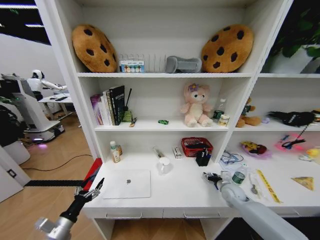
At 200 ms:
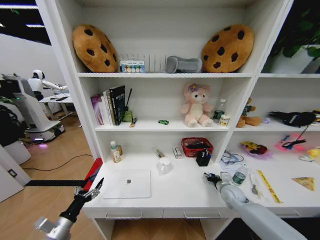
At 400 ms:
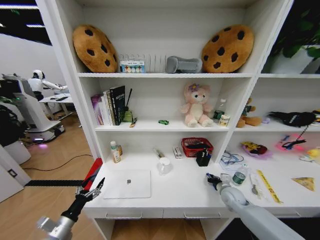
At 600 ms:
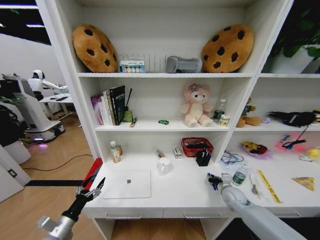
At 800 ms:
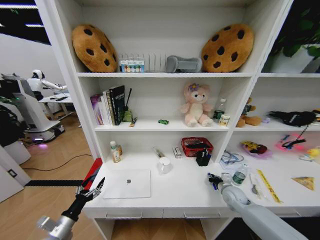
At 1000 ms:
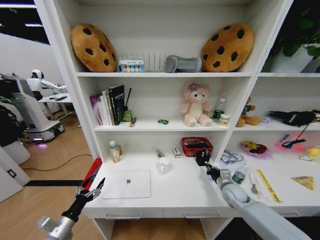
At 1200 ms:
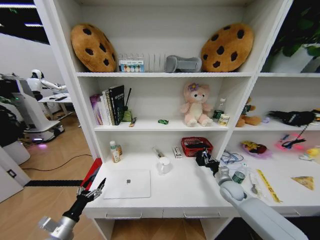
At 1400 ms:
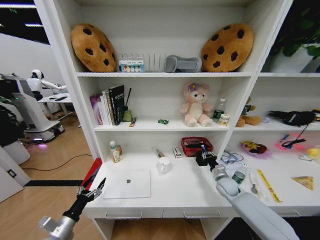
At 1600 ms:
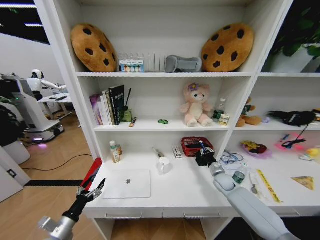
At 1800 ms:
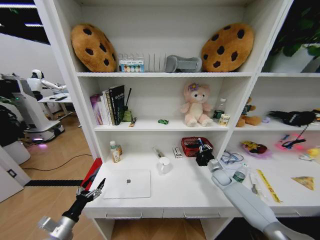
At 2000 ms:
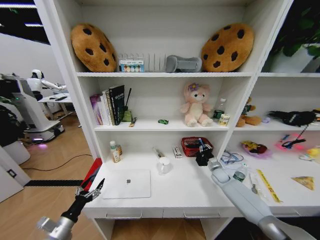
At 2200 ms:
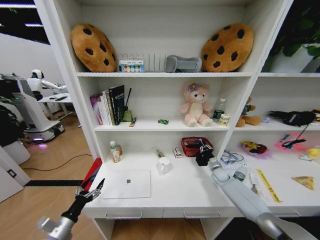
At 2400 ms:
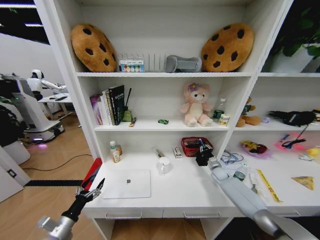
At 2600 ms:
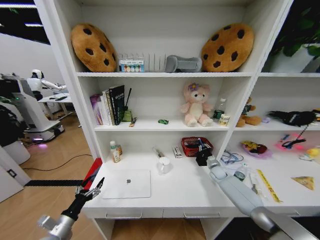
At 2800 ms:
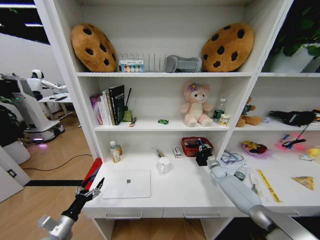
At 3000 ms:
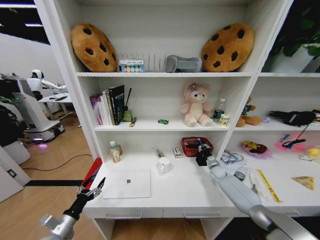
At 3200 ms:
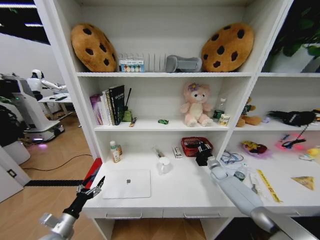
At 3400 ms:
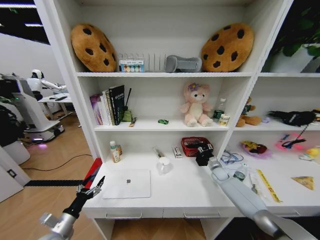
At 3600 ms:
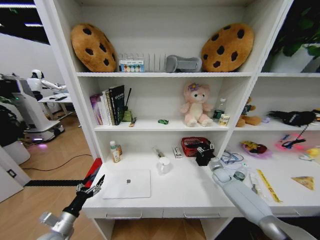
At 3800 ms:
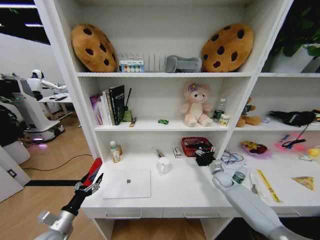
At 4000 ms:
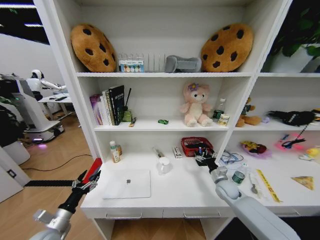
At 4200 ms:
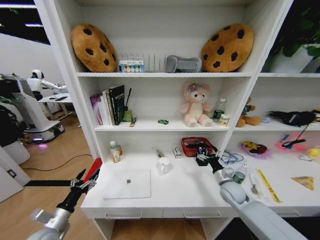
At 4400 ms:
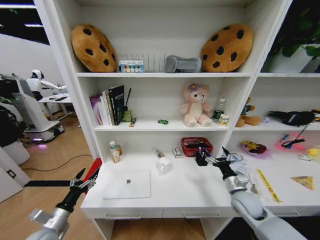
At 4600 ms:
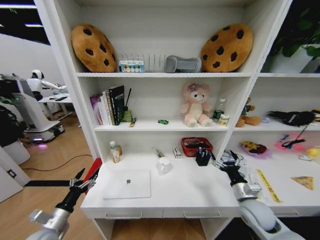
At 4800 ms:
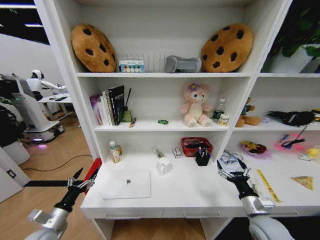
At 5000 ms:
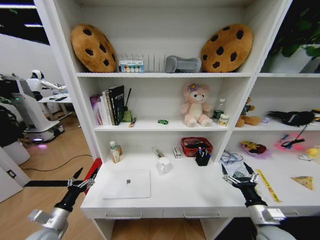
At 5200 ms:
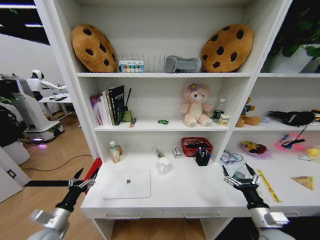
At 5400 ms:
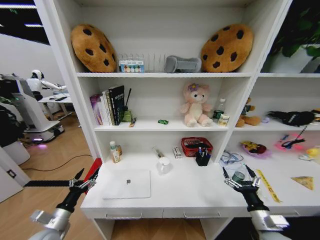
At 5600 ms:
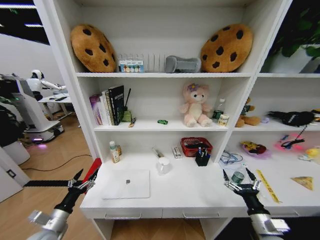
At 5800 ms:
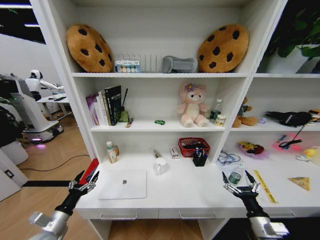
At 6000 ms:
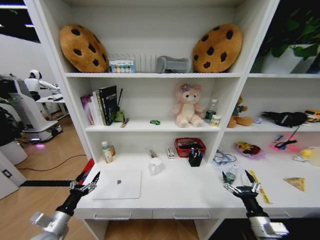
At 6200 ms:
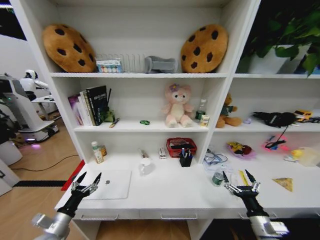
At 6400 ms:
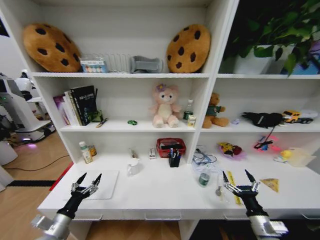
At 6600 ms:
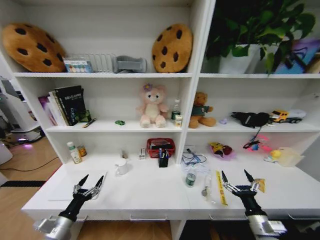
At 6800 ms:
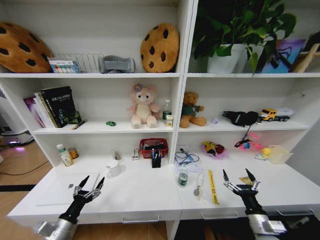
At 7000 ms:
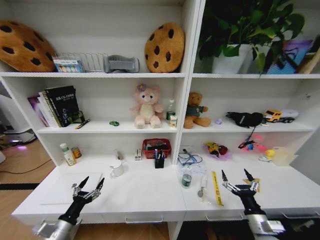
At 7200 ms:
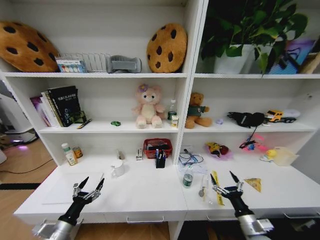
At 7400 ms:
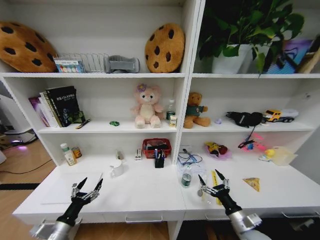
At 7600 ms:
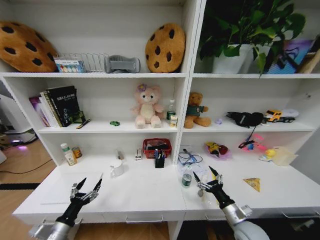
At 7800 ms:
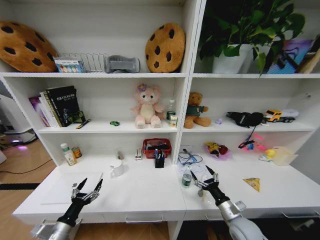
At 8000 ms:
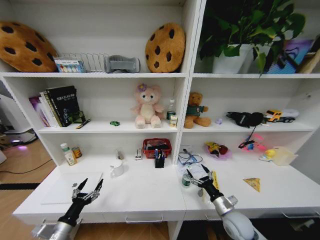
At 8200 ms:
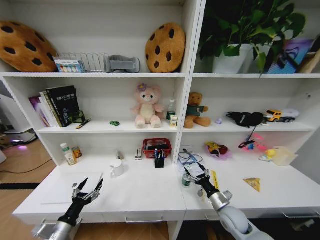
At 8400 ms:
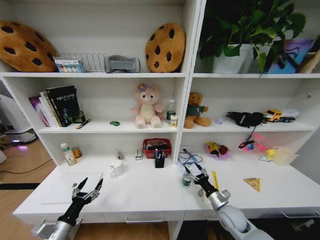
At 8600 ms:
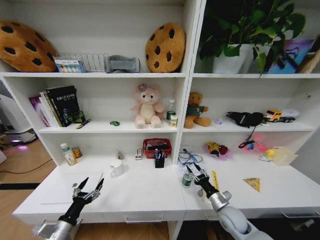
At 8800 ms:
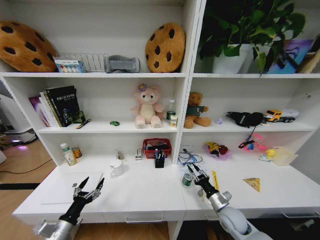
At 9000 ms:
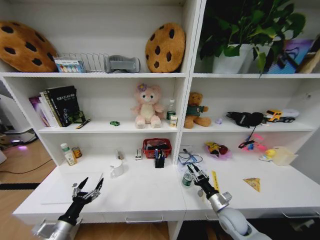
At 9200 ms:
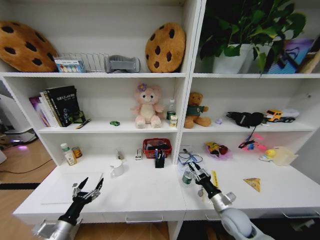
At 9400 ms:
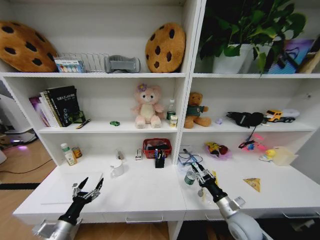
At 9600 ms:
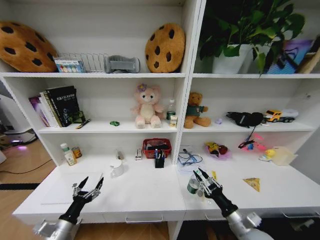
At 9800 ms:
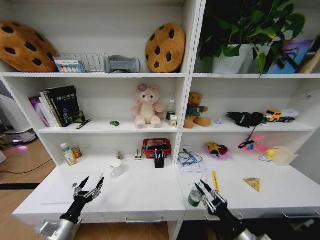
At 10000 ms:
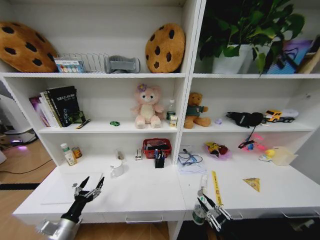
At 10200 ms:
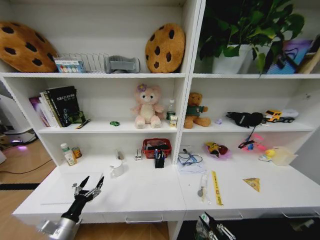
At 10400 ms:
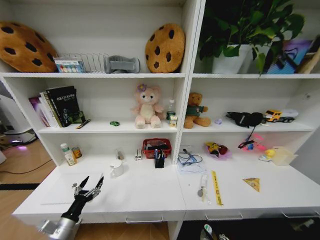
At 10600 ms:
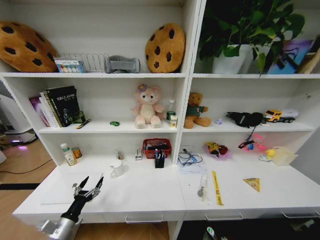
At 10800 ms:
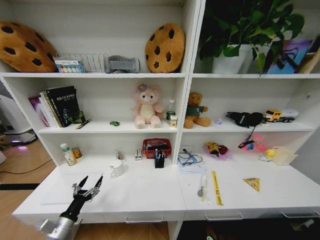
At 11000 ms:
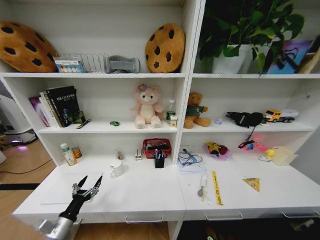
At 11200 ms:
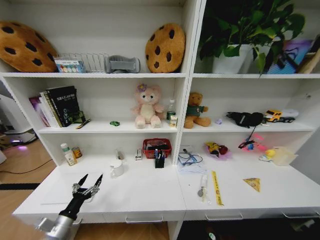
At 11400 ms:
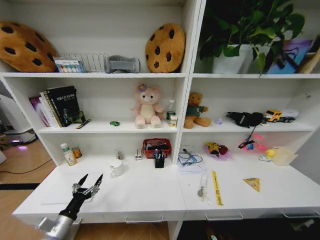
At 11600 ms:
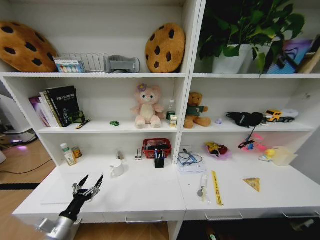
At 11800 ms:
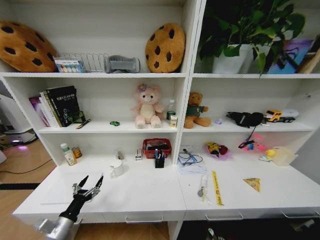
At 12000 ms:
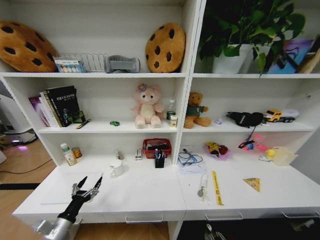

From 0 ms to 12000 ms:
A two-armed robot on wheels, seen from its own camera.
Task of the whole recording: Organize the objects on the table.
From 0 ms to 1600 ms: The right gripper moves forward, approximately 5 cm, and closes up.
From 1600 ms to 3000 ms: The right gripper goes roughly 10 cm forward.
From 3000 ms to 4400 ms: The right gripper is displaced backward and upward by about 25 cm, and opens up.
From 4400 ms to 6000 ms: The right gripper is displaced backward by about 15 cm.
From 6000 ms to 7600 ms: The right gripper changes place by approximately 5 cm.
From 7600 ms to 9000 ms: The right gripper shifts about 5 cm forward, and closes up.
From 9000 ms to 10400 ms: The right gripper is displaced backward by about 25 cm.

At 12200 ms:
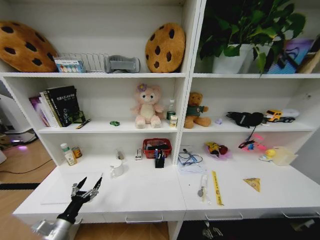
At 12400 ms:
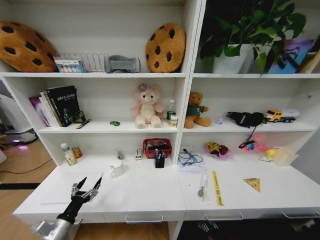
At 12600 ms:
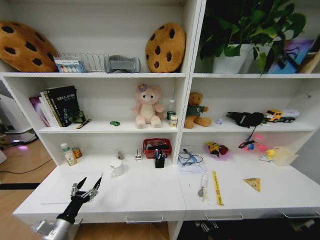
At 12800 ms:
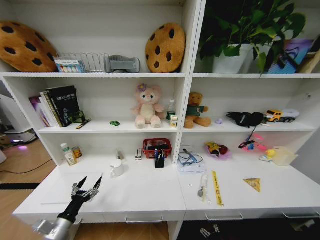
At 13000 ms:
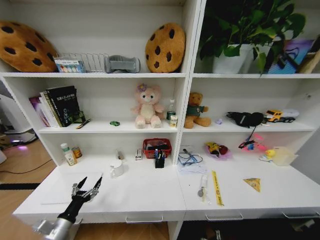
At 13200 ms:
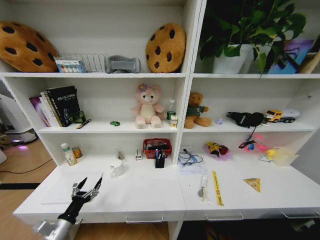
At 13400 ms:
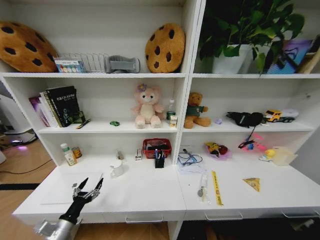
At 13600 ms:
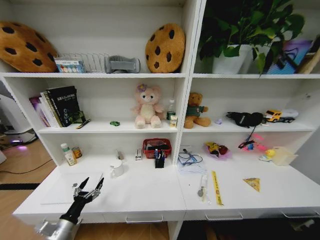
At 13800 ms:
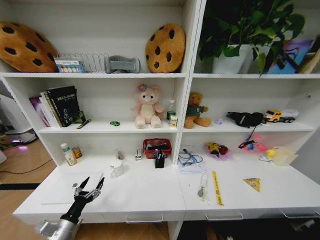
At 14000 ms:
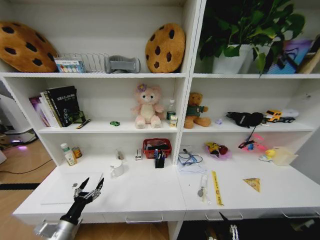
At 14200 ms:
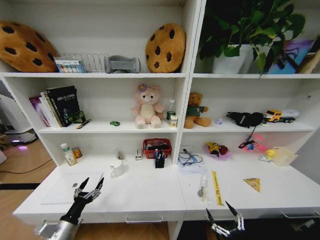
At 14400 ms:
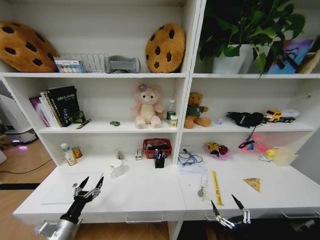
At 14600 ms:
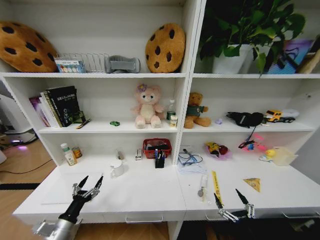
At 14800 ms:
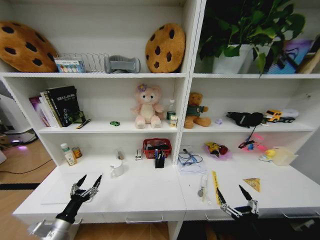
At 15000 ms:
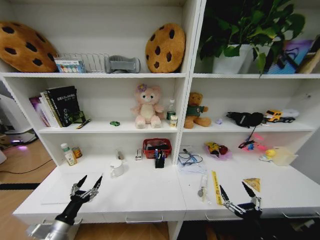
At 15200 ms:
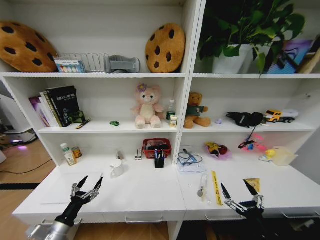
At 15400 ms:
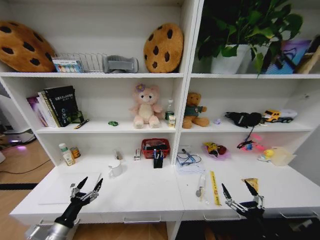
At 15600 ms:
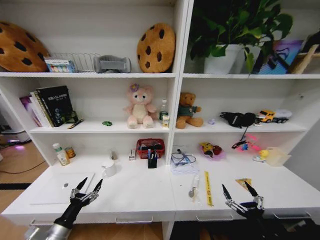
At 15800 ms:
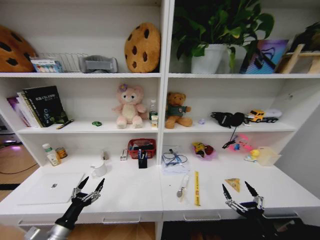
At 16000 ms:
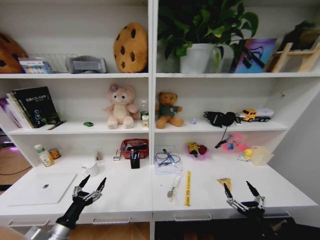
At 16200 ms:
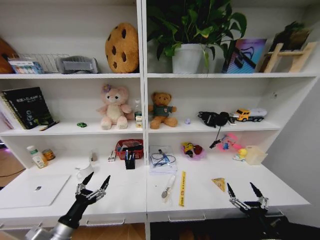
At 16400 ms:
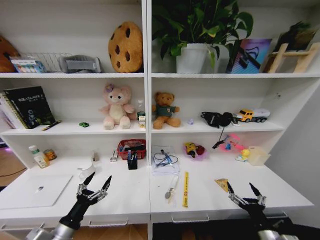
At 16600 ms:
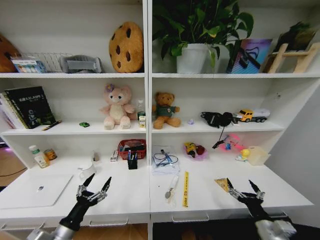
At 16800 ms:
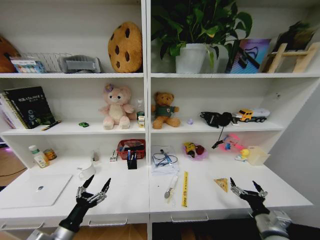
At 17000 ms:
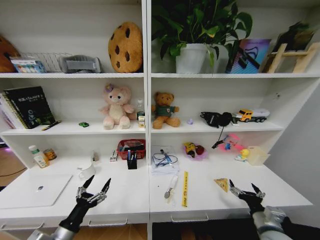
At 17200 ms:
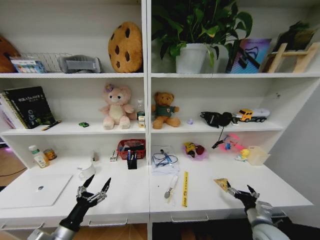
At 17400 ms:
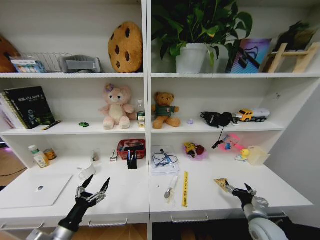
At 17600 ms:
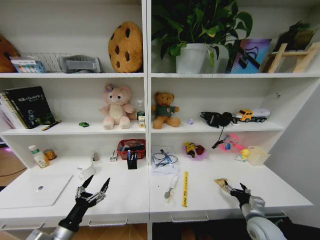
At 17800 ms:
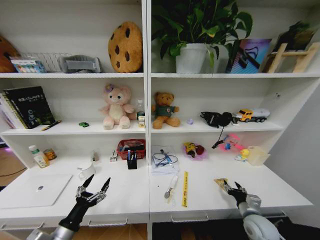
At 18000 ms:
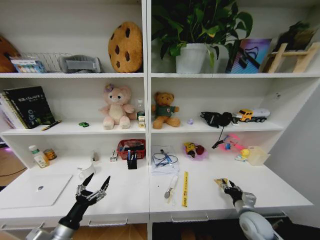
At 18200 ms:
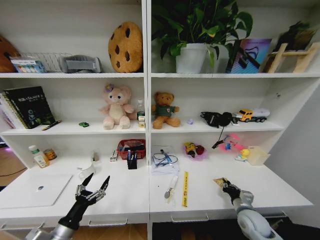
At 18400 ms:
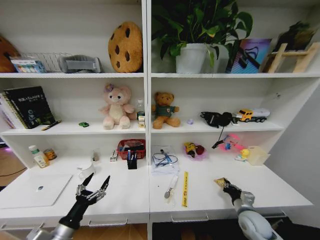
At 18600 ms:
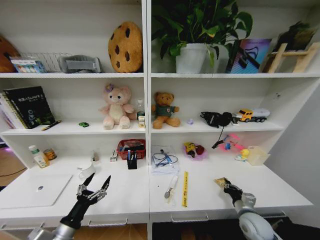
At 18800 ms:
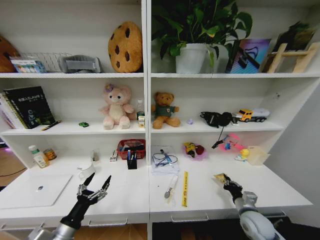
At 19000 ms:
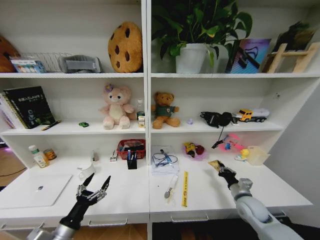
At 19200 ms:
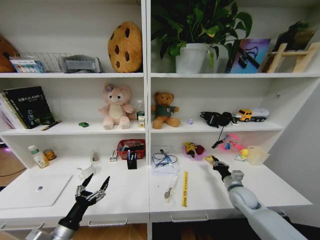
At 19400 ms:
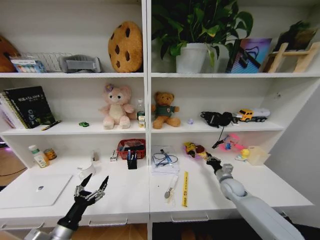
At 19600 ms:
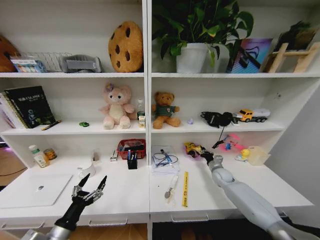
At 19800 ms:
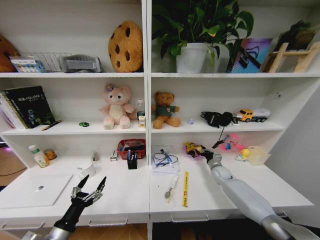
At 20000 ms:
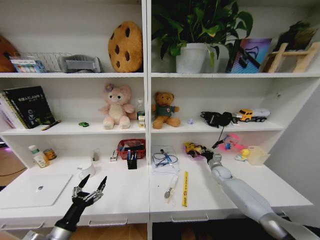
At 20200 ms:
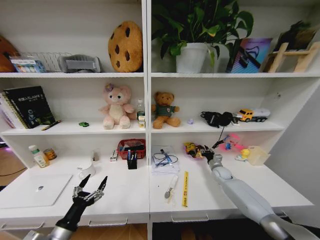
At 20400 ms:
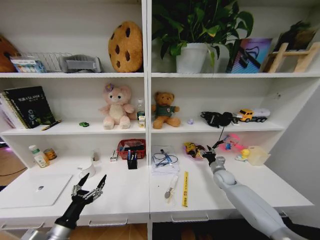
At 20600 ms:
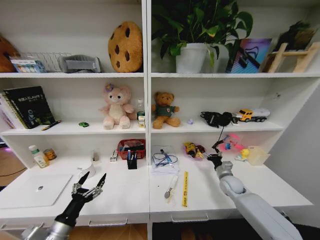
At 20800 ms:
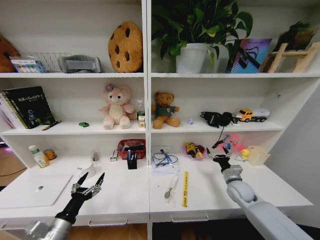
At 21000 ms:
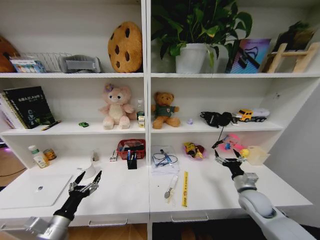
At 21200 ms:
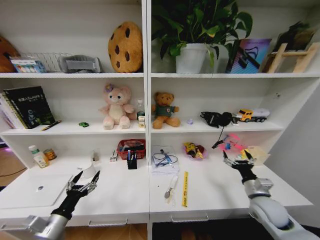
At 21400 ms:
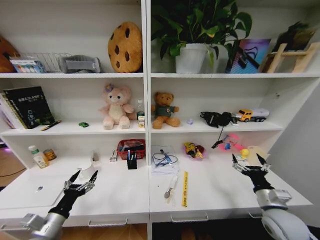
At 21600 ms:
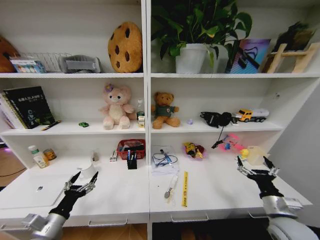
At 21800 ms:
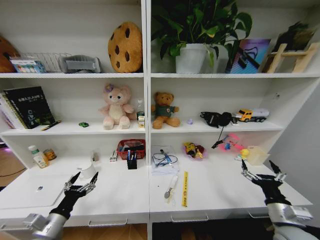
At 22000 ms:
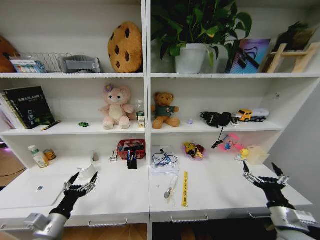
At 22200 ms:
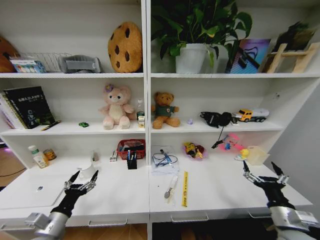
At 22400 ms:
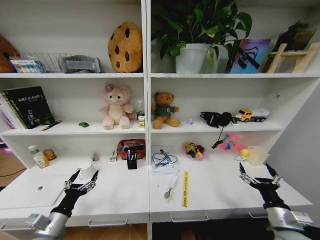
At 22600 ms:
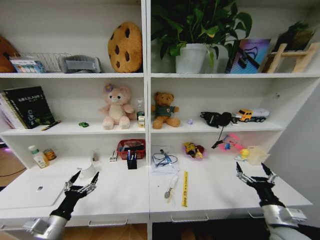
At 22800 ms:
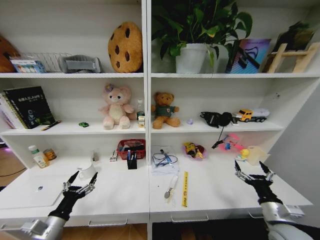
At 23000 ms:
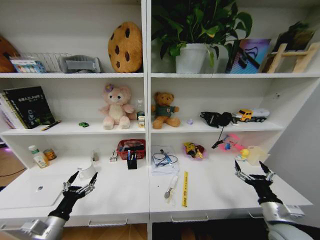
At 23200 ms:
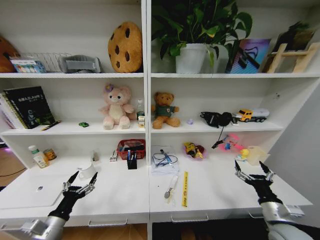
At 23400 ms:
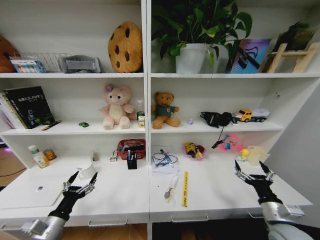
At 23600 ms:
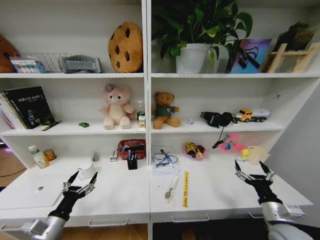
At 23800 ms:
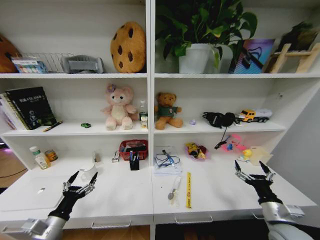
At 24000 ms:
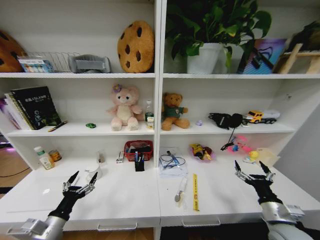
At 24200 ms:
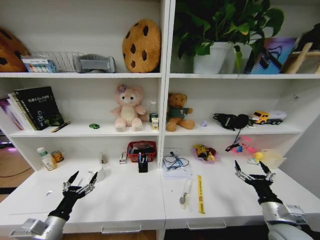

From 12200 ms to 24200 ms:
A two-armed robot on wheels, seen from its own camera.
Task of the whole recording: Organize the objects on the table.
From 13800 ms to 15200 ms: The right gripper goes about 20 cm upward and forward.
From 15200 ms to 16600 ms: The left gripper changes place by roughly 5 cm; the right gripper moves forward, roughly 5 cm.
From 16600 ms to 18200 ms: The right gripper moves forward and downward, roughly 15 cm, and closes up.
From 18200 ms to 19800 ms: The right gripper shifts some 20 cm forward.
From 19800 ms to 21200 ms: The right gripper goes some 25 cm backward and upward, and opens up.
From 21200 ms to 22600 ms: The right gripper shifts approximately 10 cm backward.
